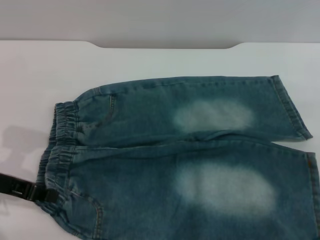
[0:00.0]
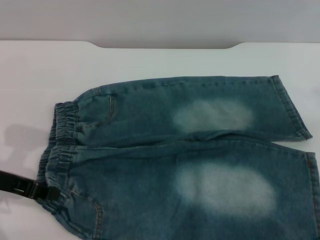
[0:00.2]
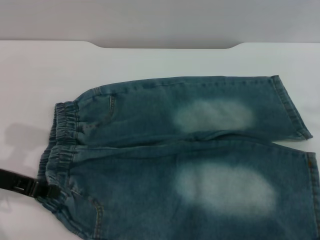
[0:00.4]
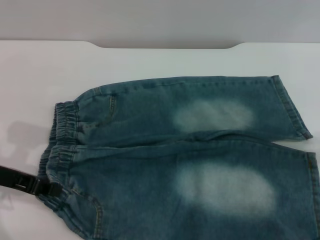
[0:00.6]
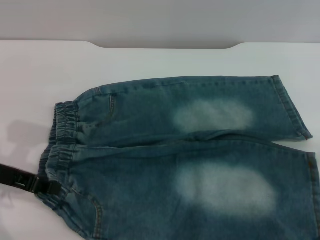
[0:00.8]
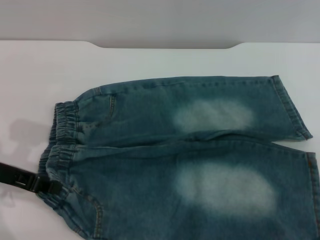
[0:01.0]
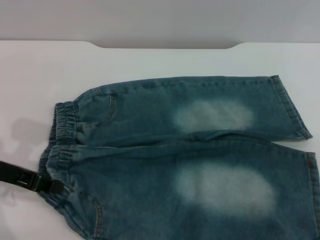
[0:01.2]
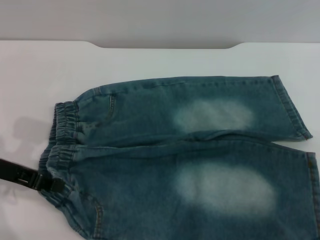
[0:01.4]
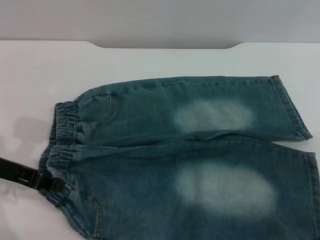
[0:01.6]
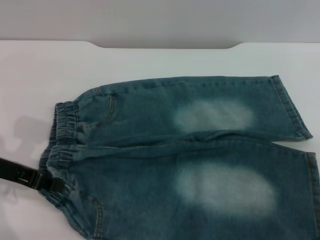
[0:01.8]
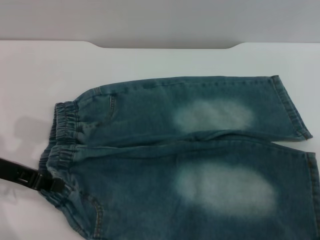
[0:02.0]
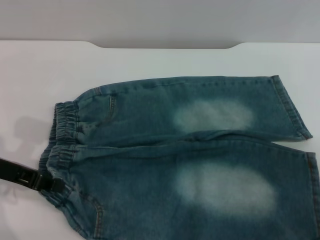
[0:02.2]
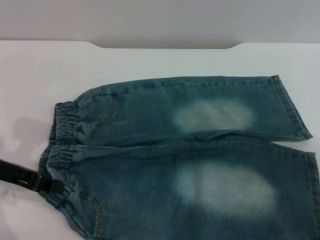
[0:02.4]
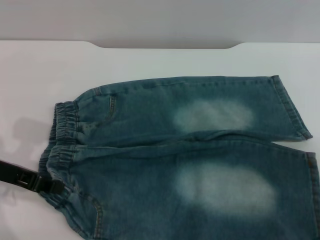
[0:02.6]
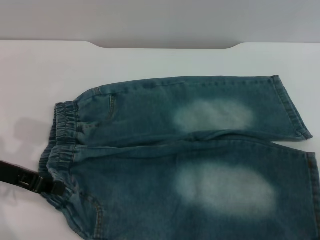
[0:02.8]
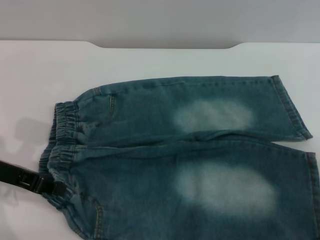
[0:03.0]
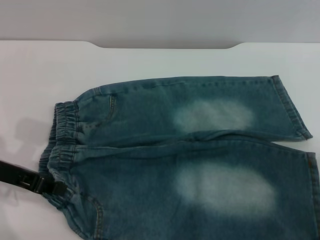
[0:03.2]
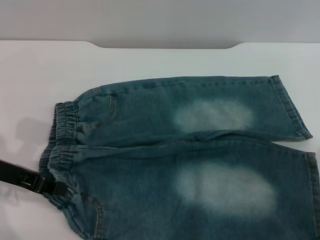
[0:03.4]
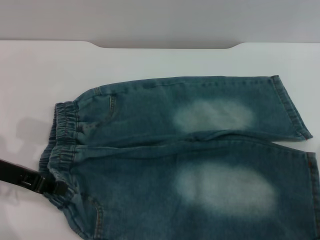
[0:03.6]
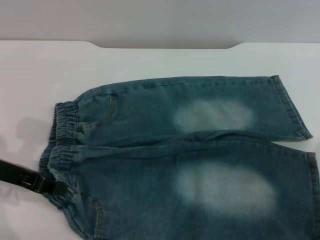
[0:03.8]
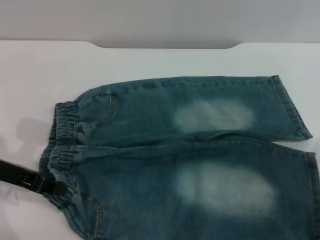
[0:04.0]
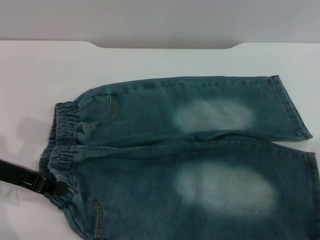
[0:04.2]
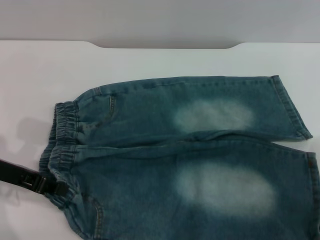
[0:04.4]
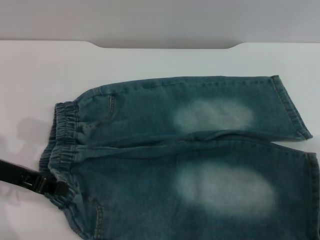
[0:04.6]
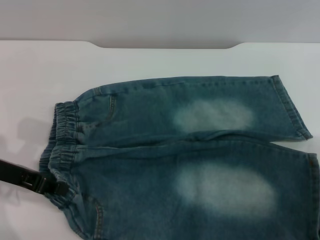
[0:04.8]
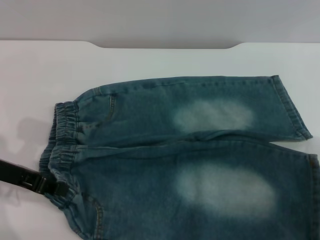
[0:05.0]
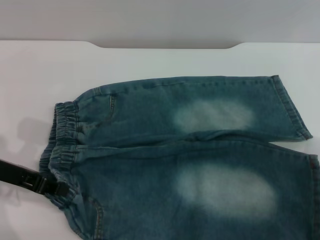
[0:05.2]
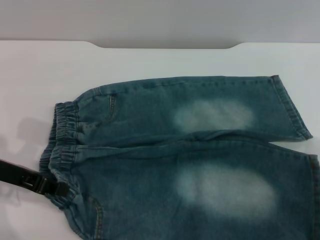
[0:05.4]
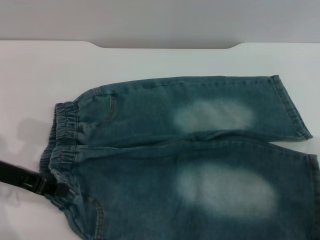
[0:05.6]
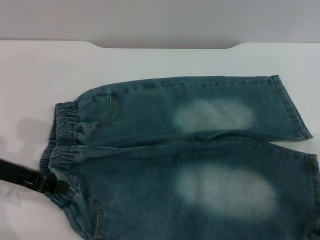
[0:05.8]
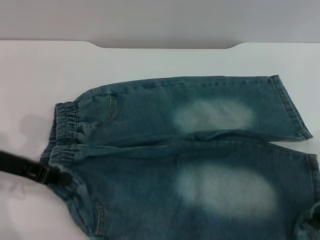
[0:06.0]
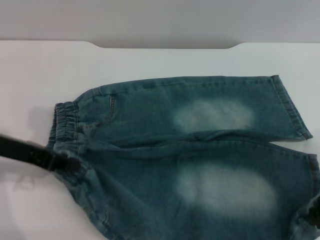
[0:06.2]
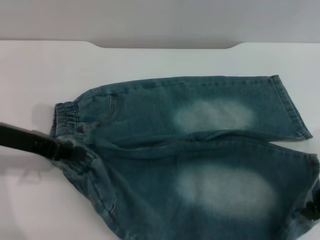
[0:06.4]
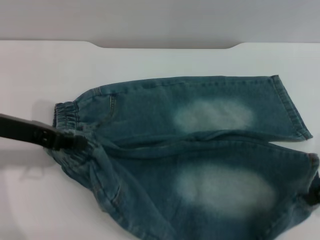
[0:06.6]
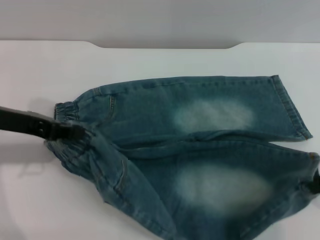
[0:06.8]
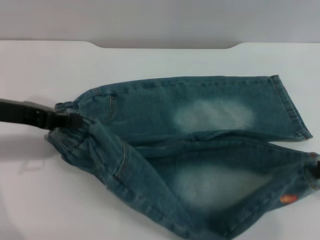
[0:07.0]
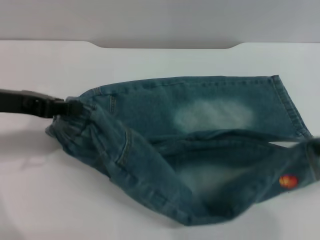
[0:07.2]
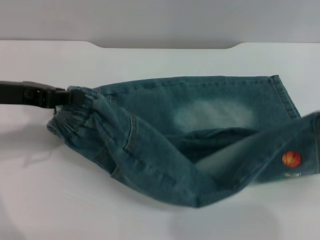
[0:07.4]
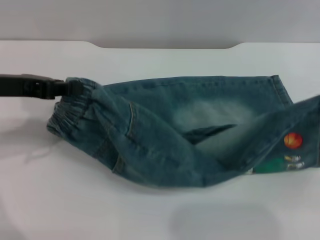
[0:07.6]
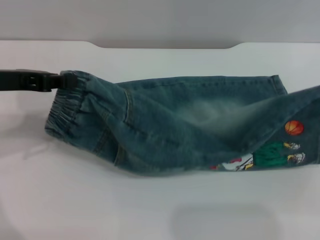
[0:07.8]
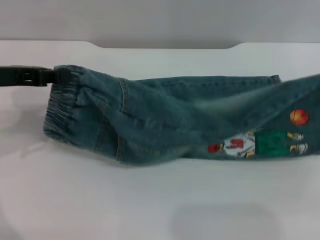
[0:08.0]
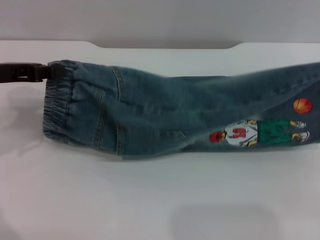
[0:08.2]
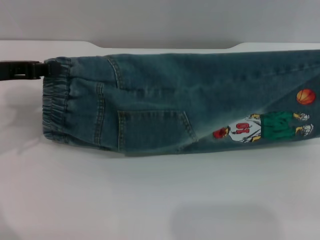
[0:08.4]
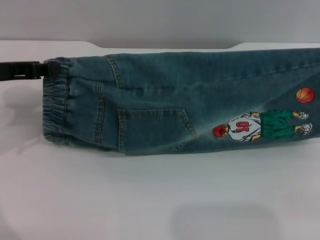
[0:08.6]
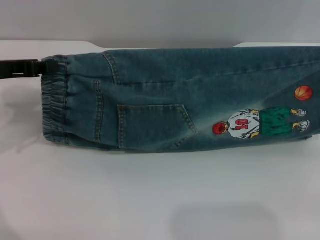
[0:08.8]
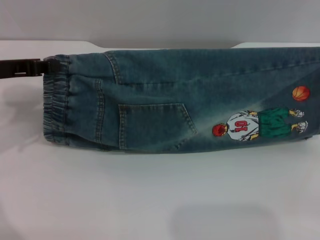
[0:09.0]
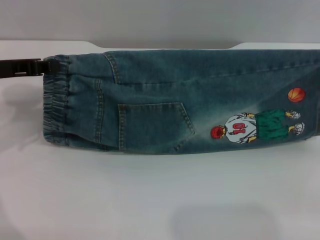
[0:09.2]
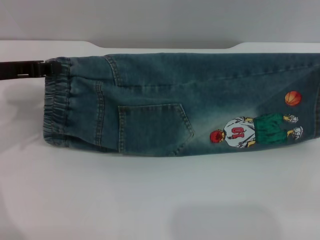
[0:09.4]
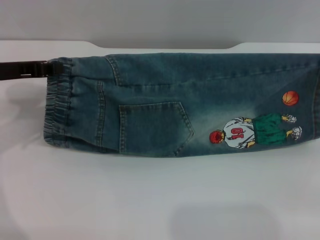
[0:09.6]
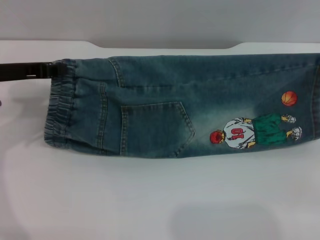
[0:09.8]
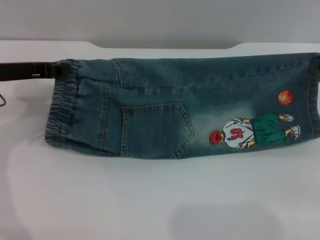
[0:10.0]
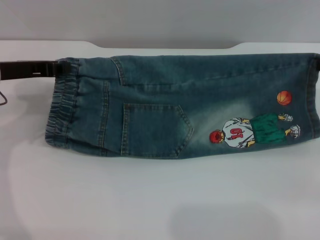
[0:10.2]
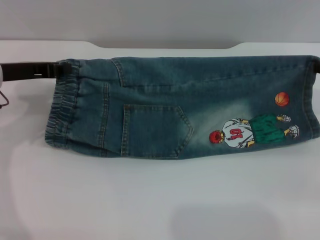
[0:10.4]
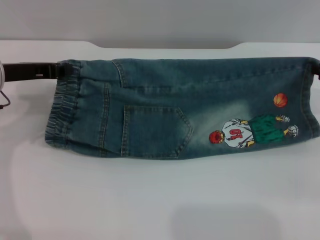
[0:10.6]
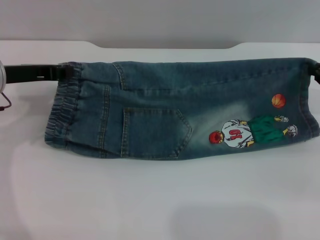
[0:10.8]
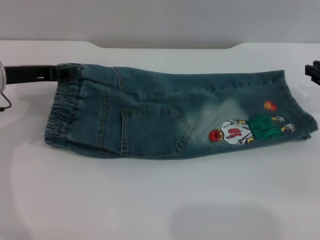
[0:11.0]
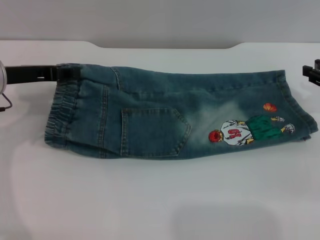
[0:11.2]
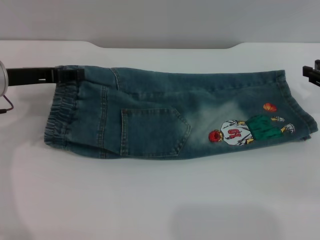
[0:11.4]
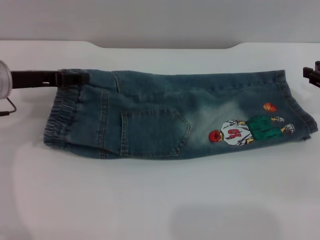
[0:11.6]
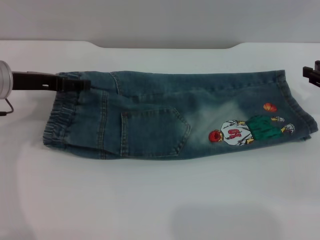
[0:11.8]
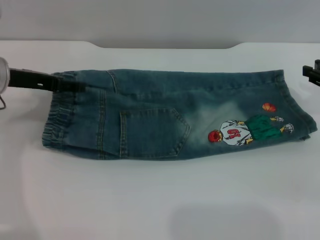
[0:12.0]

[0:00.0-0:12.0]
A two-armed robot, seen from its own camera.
0:06.0 to 0:07.6: The left gripper heads upward, covering about 5 cm. Meanwhile the right gripper heads upward and to the right, covering approximately 10 cm.
0:09.0 to 0:10.4: The right gripper moves downward, roughly 5 cm.
0:10.4 to 0:12.0: The right gripper opens its fingers; the left gripper opens.

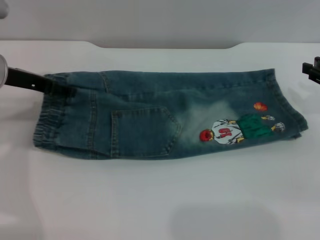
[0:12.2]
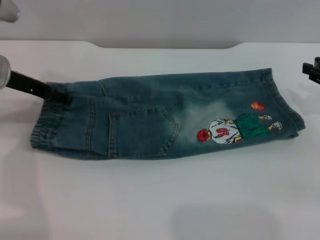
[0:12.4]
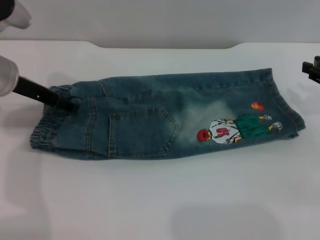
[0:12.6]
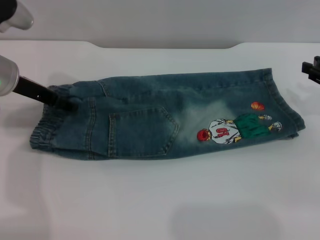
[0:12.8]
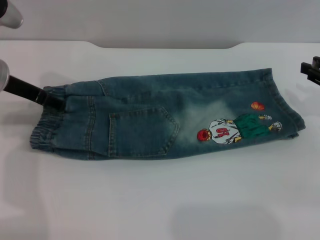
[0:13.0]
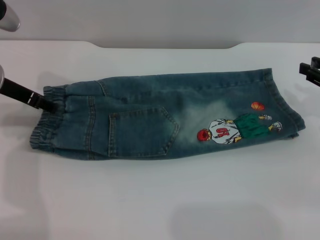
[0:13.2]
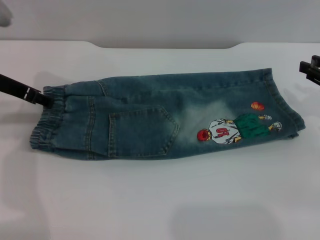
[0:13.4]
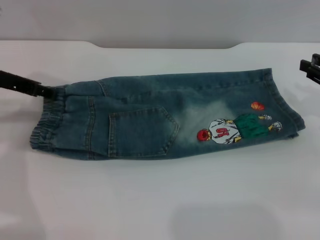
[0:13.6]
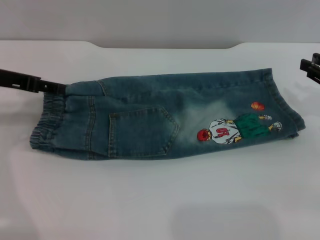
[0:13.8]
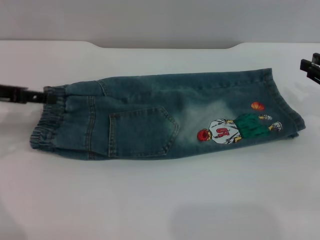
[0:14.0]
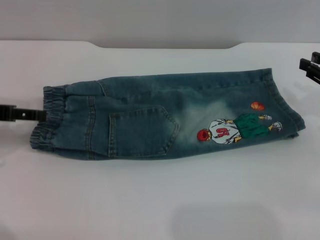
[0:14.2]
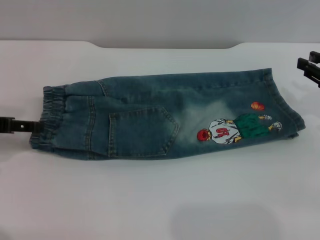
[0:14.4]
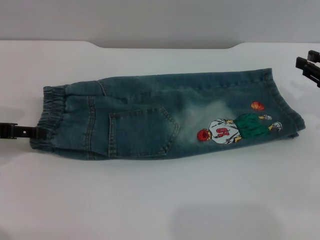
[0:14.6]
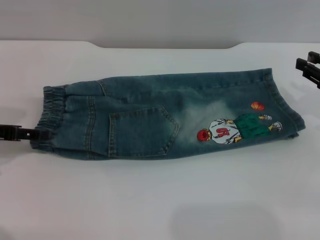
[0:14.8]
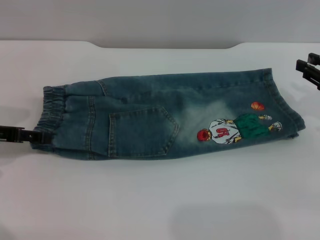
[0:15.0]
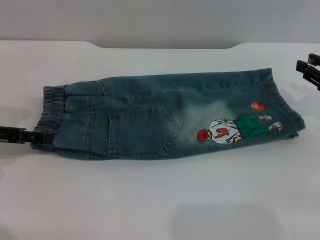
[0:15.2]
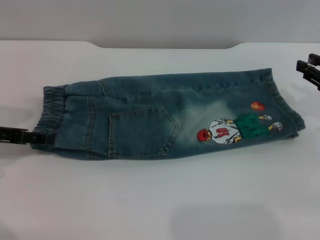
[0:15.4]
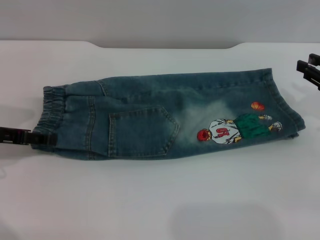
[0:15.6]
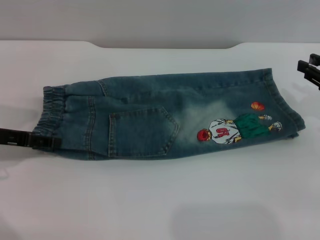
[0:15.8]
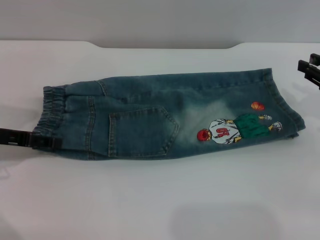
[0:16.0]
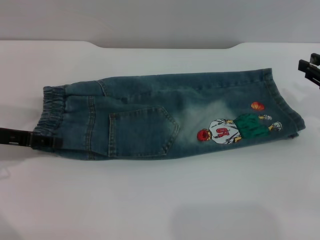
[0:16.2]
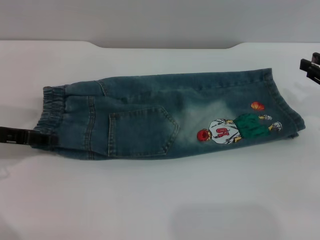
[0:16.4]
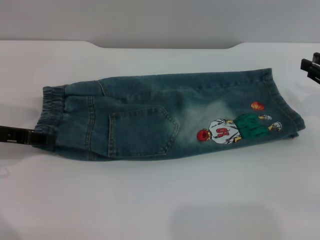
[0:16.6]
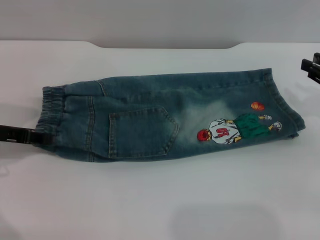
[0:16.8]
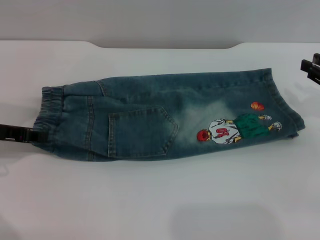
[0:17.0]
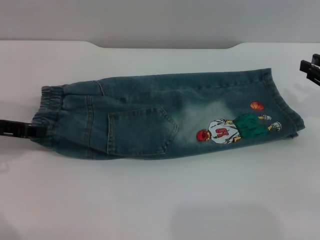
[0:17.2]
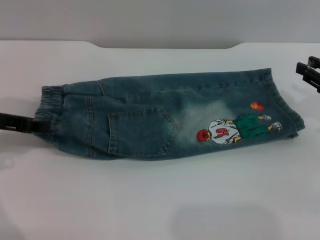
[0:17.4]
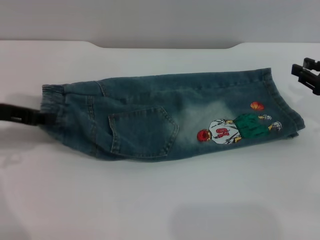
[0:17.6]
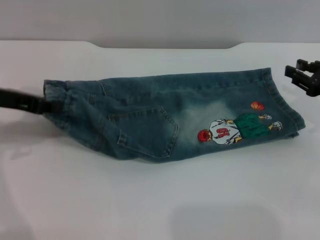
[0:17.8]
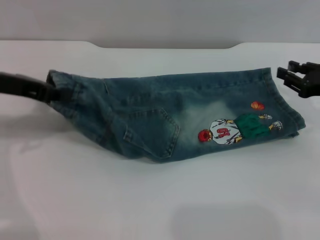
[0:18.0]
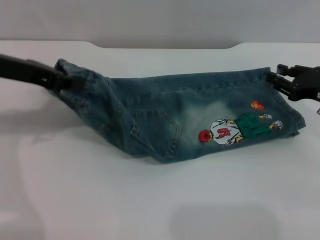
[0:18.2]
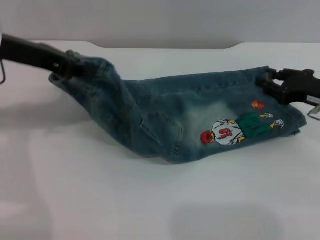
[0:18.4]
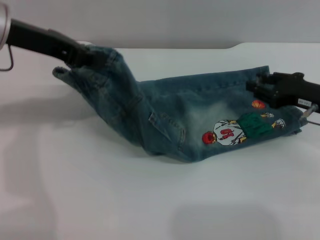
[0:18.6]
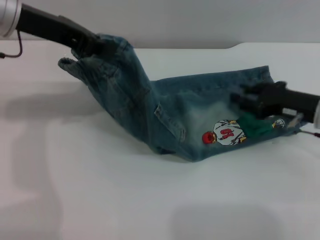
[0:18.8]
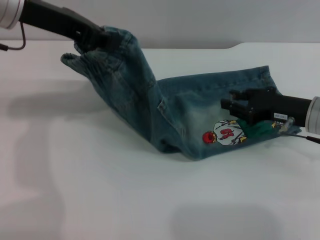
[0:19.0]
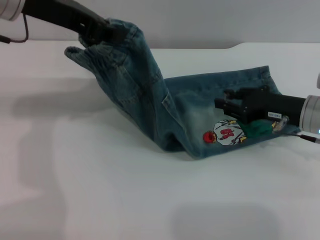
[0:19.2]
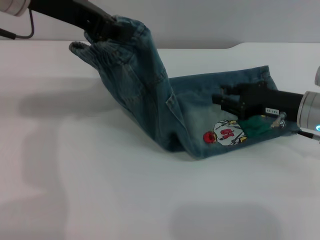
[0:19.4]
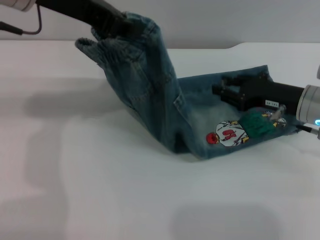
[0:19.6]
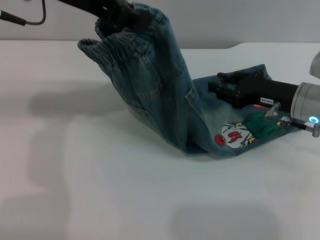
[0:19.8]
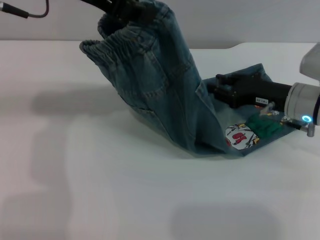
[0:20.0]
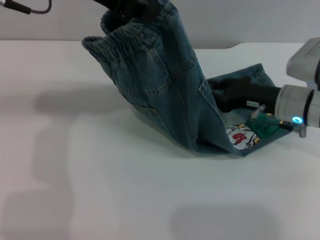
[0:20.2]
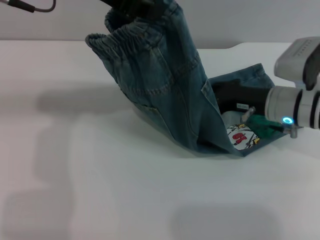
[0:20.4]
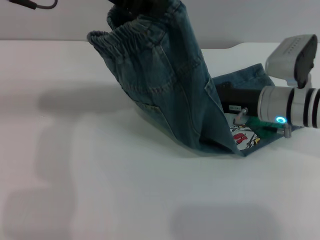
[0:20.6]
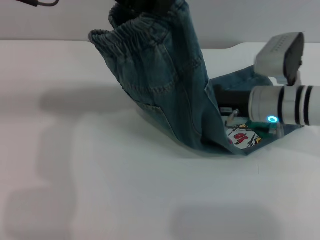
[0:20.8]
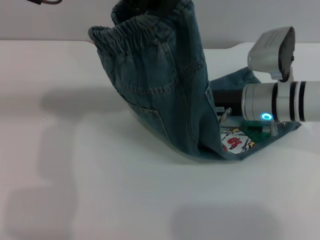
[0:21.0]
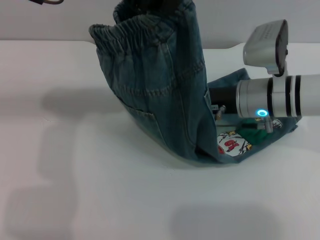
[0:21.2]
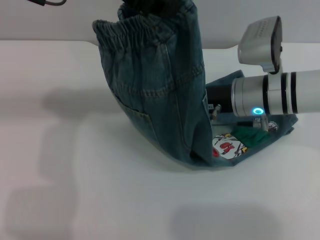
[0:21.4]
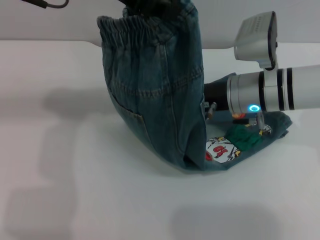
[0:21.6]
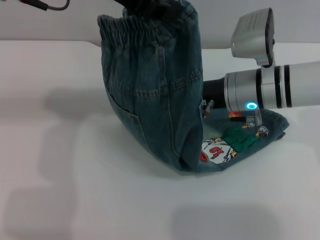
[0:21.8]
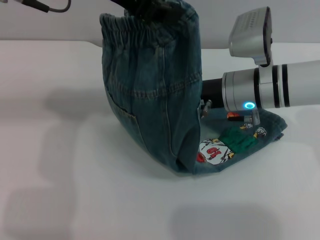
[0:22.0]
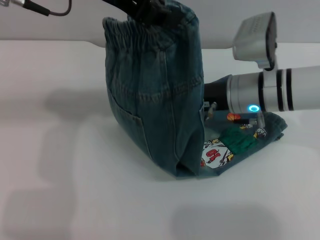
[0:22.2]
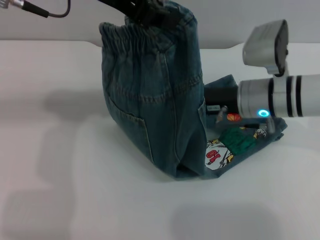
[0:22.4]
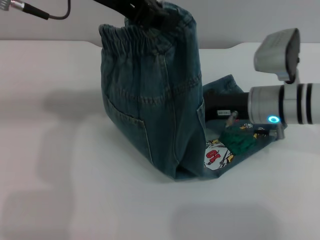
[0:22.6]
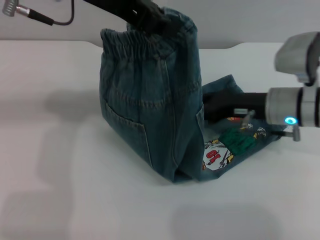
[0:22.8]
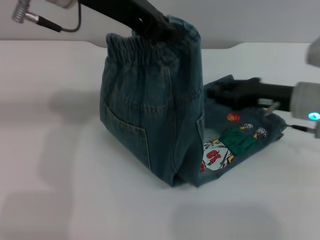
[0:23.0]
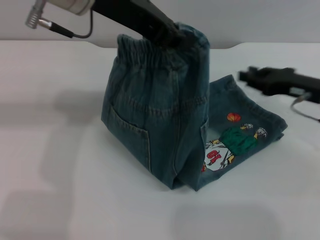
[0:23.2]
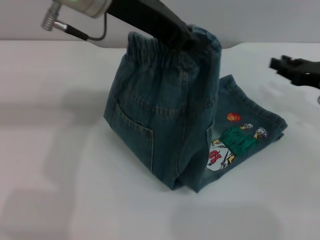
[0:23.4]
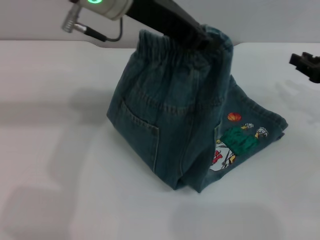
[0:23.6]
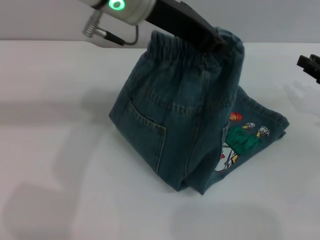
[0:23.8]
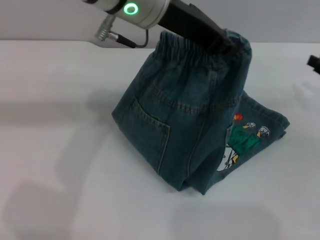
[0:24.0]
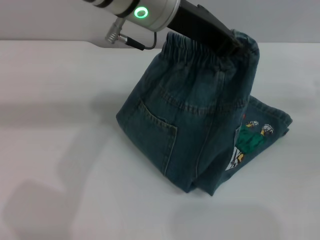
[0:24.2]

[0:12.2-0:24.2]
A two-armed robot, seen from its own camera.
0:12.2 to 0:13.8: The grippers make only small movements.
0:13.8 to 0:15.2: The left gripper heads downward, covering roughly 5 cm.
0:16.6 to 0:18.2: The left gripper heads upward and to the right, covering approximately 10 cm, and closes.
0:18.2 to 0:19.8: The right gripper goes roughly 10 cm to the left; the left gripper heads upward and to the right, covering approximately 15 cm.
0:19.8 to 0:21.2: The right gripper goes approximately 10 cm to the left.
0:21.2 to 0:22.6: The grippers move only a little.
0:22.6 to 0:24.2: The left gripper travels to the right by some 10 cm. The right gripper is displaced to the right by approximately 20 cm.
